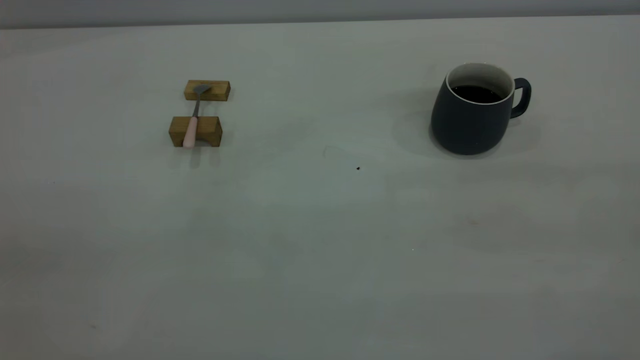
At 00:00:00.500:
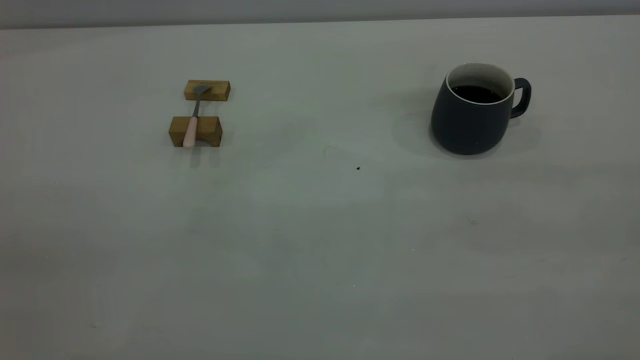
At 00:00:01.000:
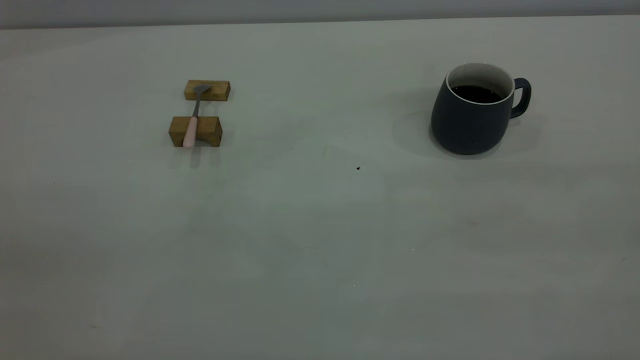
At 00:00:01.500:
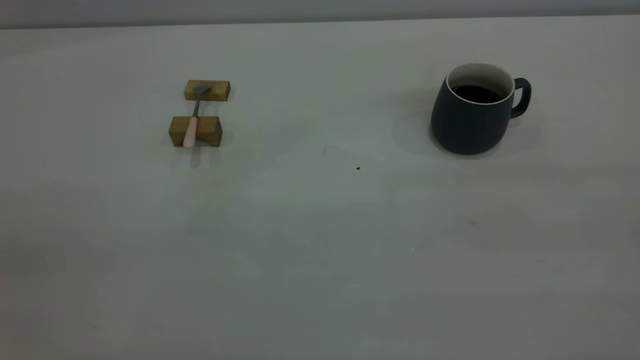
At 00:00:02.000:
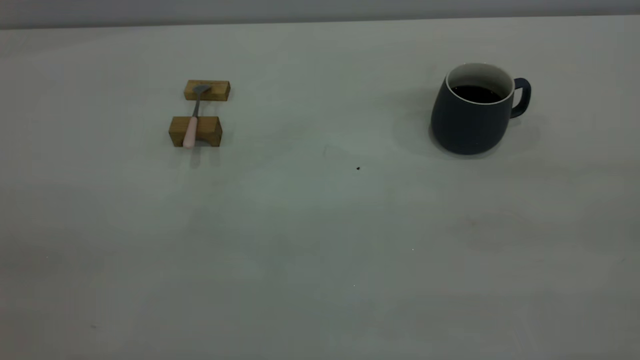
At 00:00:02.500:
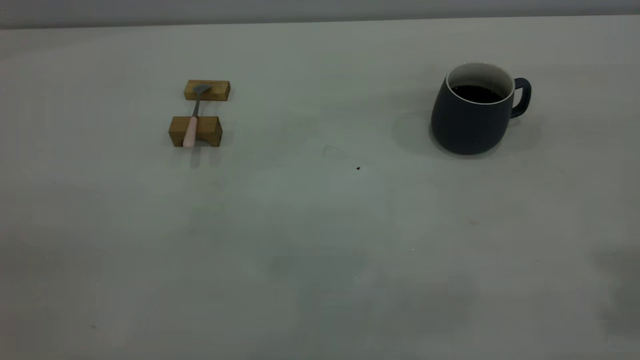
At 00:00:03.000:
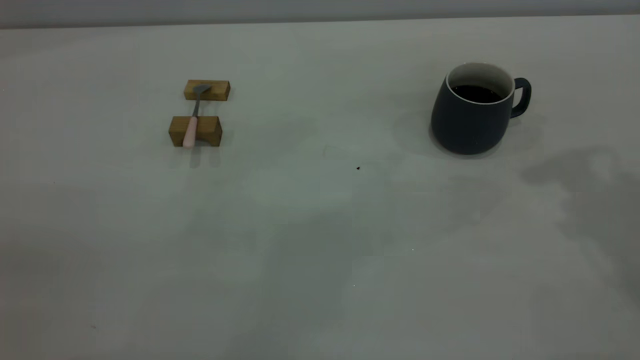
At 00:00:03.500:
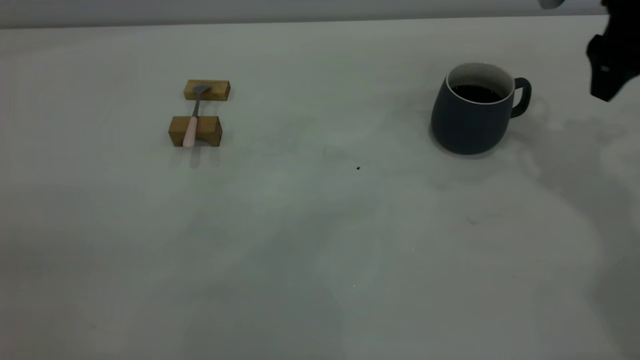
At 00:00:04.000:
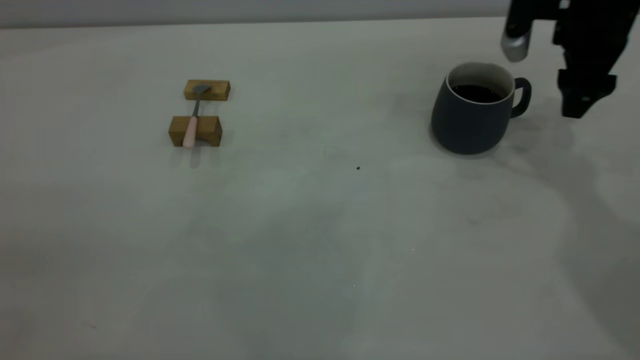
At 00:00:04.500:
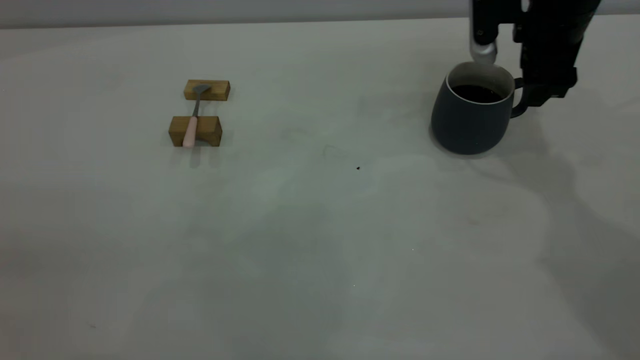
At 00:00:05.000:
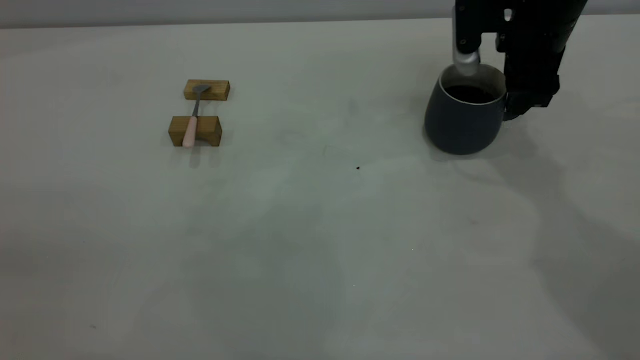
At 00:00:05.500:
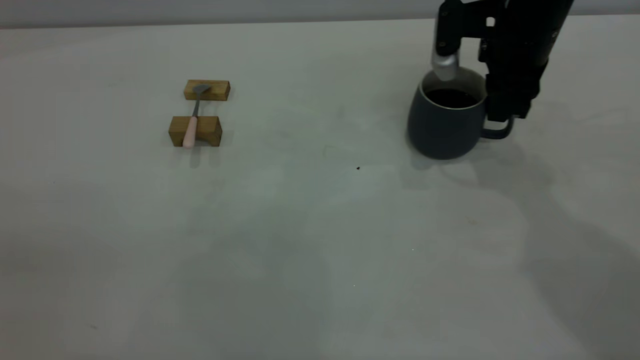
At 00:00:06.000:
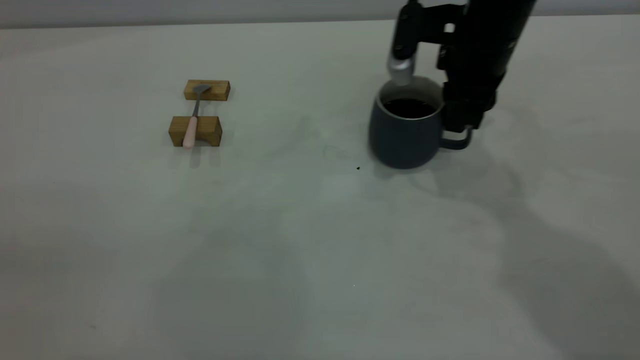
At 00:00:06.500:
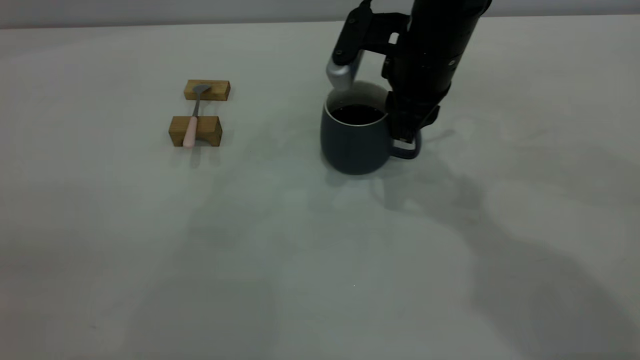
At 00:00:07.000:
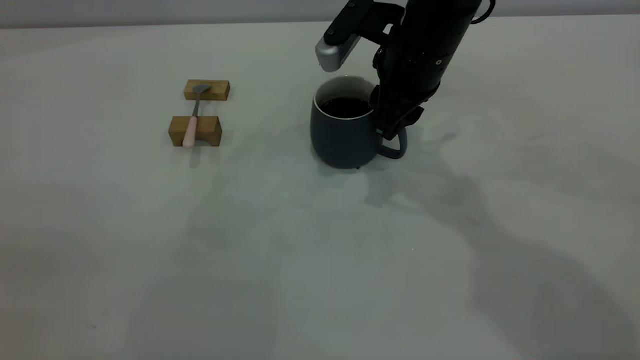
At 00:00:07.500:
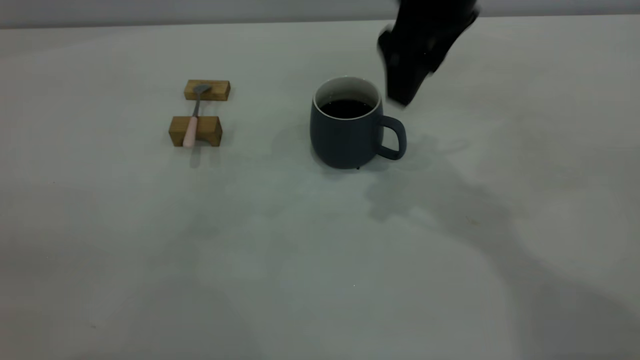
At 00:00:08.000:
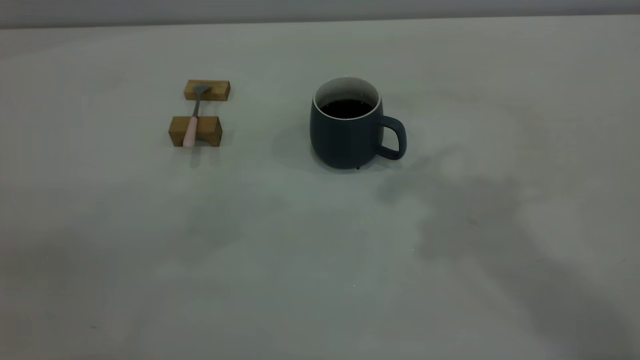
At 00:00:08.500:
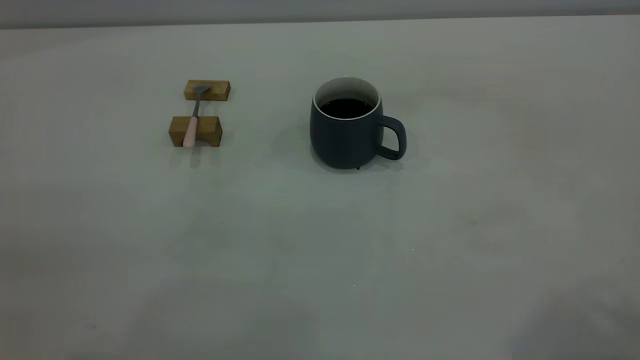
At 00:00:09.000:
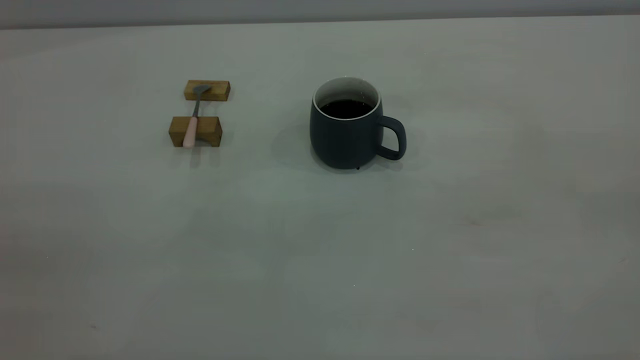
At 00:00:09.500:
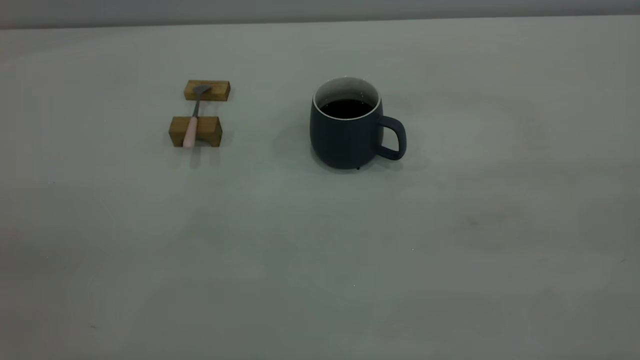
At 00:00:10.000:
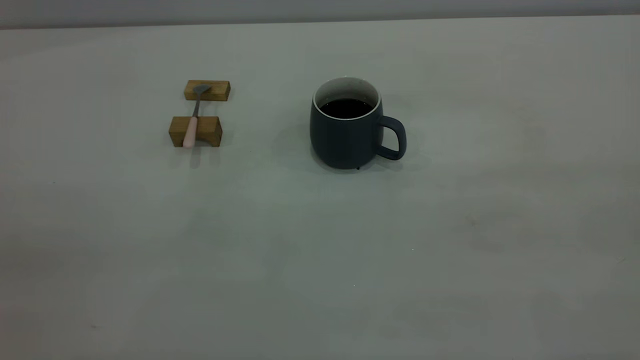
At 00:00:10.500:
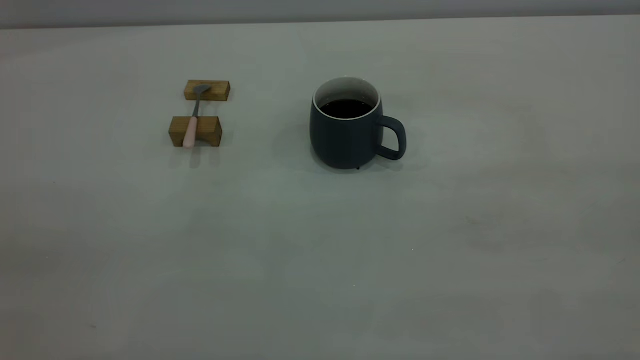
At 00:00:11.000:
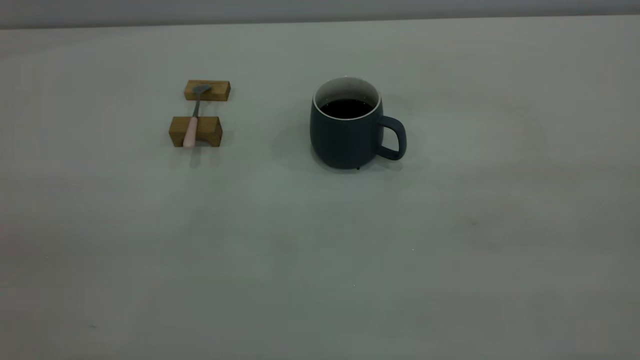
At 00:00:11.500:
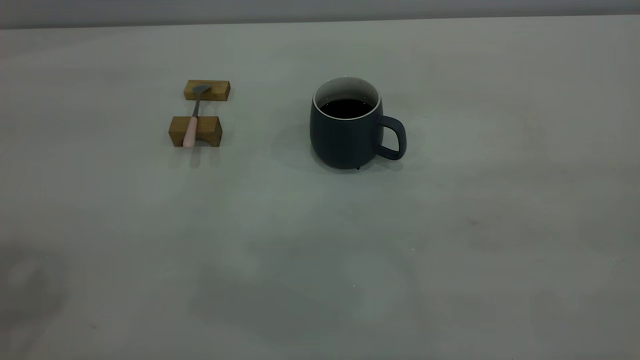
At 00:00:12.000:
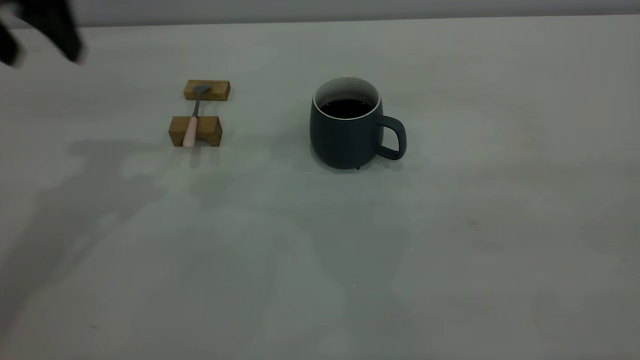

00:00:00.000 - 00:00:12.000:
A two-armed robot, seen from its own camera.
Step, 00:00:00.000 - 00:00:07.000: Move the cup with coffee to the center of view.
00:00:02.000 - 00:00:04.000: The right gripper heads forward and downward, covering about 50 cm, and opens up.
00:00:04.000 - 00:00:06.000: The right gripper goes about 10 cm to the left, and closes its fingers.
00:00:06.000 - 00:00:08.000: The right gripper travels upward and backward by about 30 cm, and opens its fingers.
00:00:10.000 - 00:00:12.000: The left gripper moves forward, approximately 35 cm, and opens its fingers.

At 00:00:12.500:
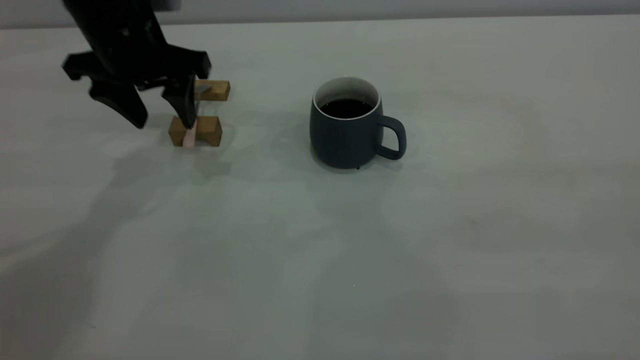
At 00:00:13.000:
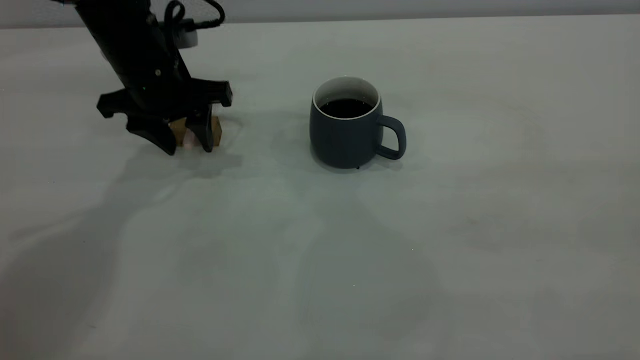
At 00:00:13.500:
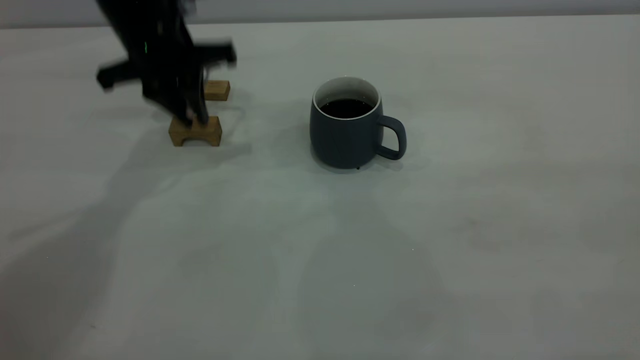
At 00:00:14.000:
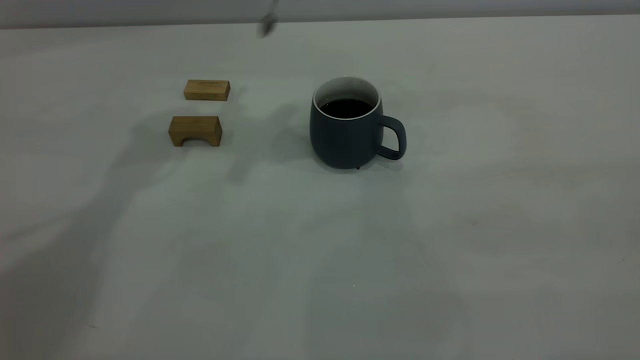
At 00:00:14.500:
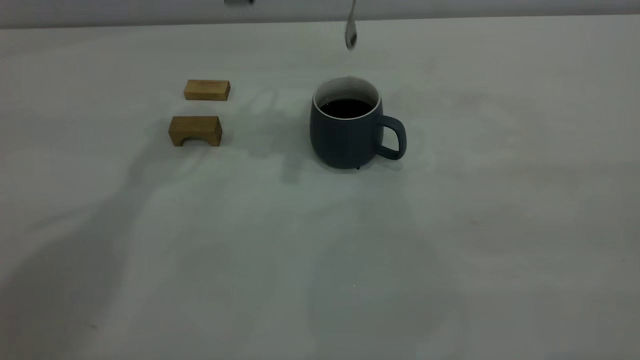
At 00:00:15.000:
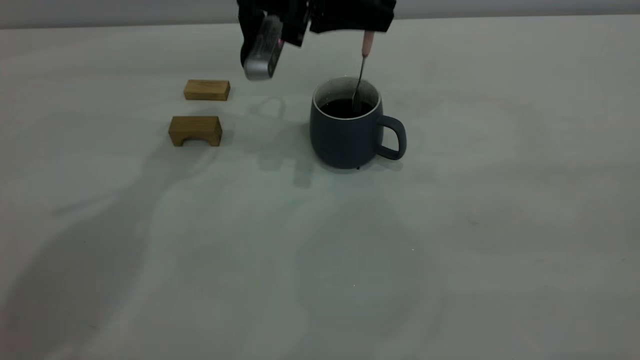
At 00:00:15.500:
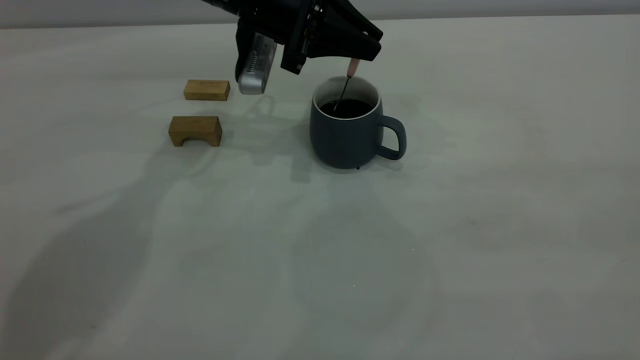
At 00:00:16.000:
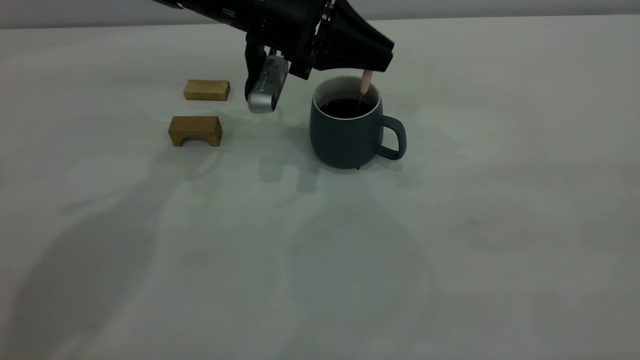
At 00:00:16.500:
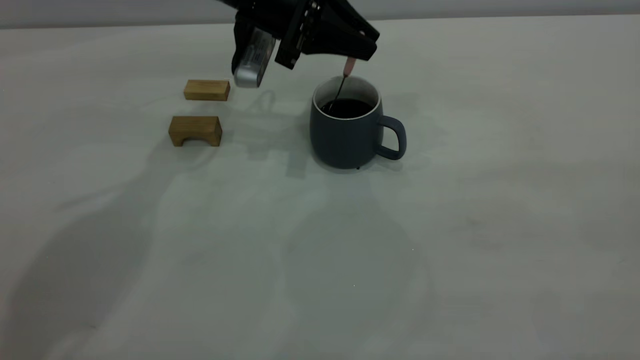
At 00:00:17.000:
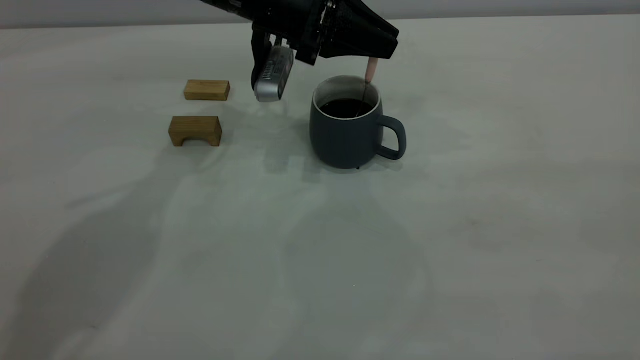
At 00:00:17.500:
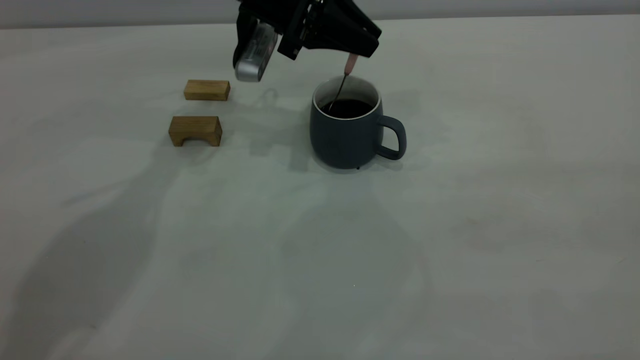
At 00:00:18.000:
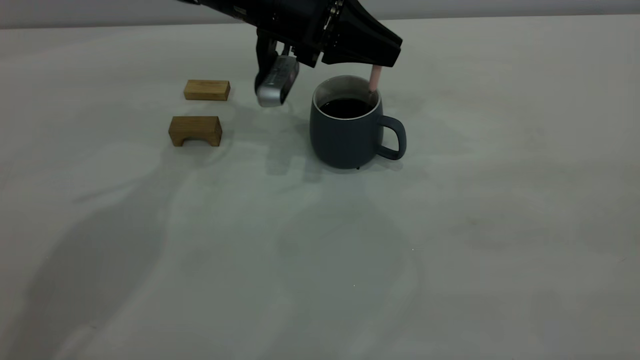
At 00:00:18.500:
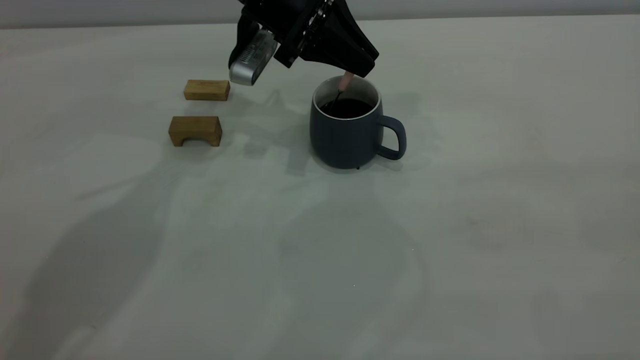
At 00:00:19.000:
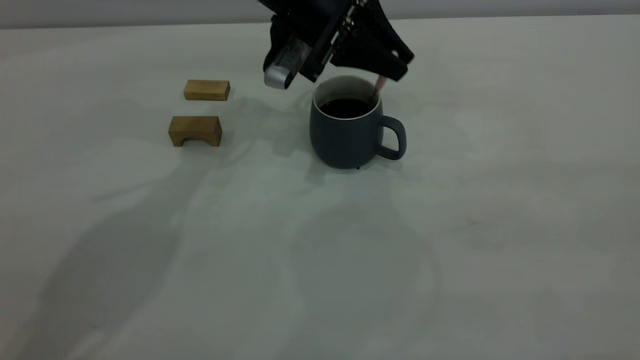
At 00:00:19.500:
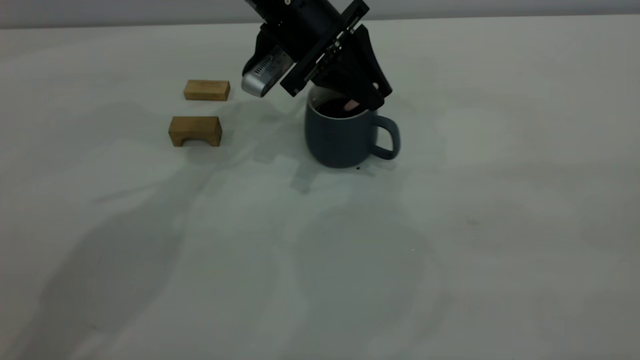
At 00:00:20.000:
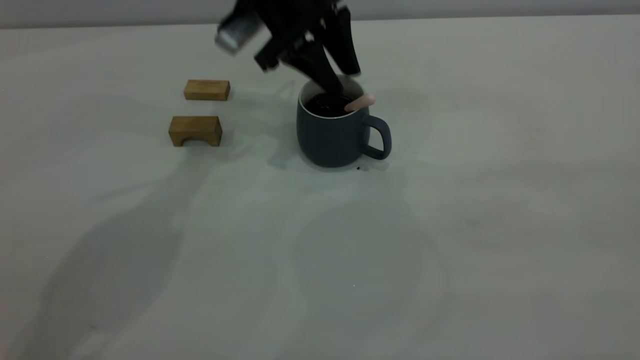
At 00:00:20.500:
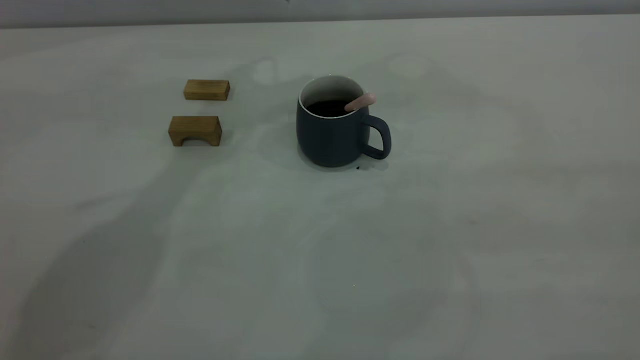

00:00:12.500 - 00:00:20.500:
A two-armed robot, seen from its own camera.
Step, 00:00:14.000 - 00:00:20.000: Stir the coffee in the cup.
00:00:12.500 - 00:00:14.500: The left gripper goes about 15 cm to the right and upward, and closes.
00:00:14.500 - 00:00:16.500: The left gripper heads downward, covering some 10 cm.
00:00:16.500 - 00:00:18.500: There are only small adjustments of the grippers.
00:00:18.500 - 00:00:20.500: The left gripper shifts roughly 15 cm upward, and opens.
